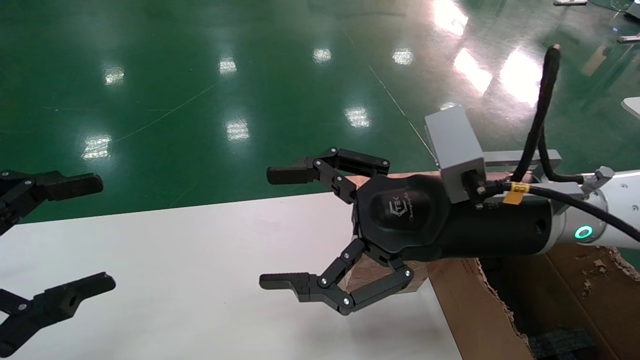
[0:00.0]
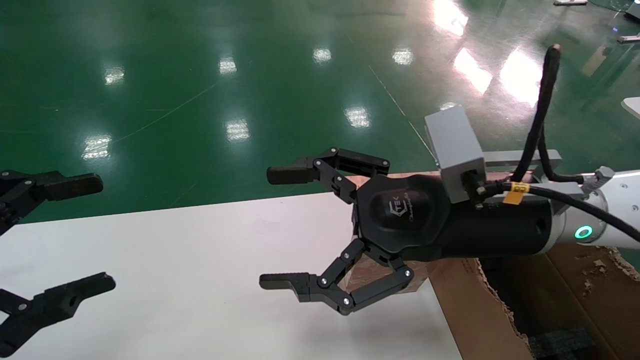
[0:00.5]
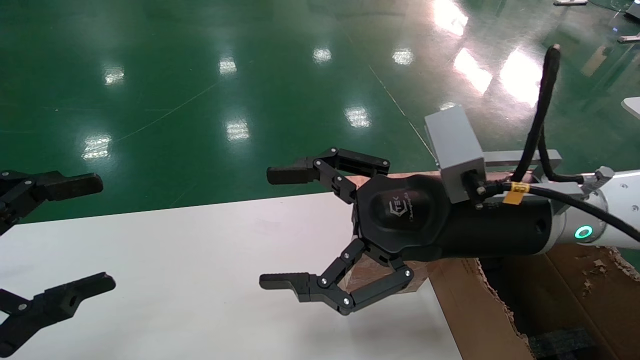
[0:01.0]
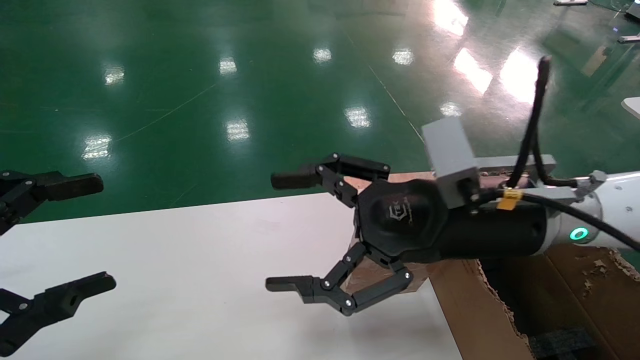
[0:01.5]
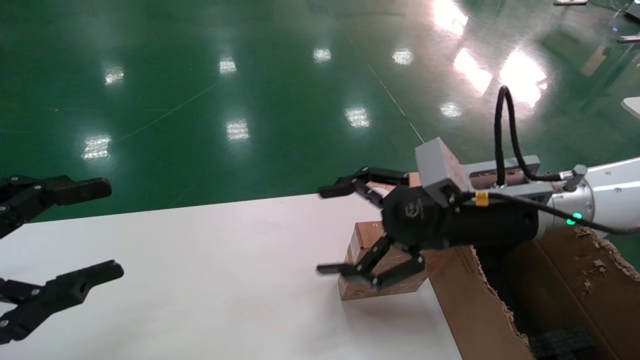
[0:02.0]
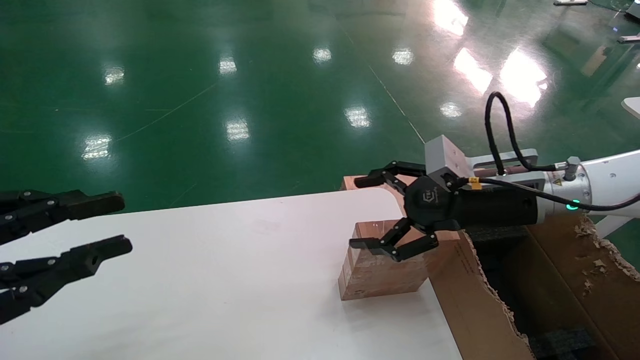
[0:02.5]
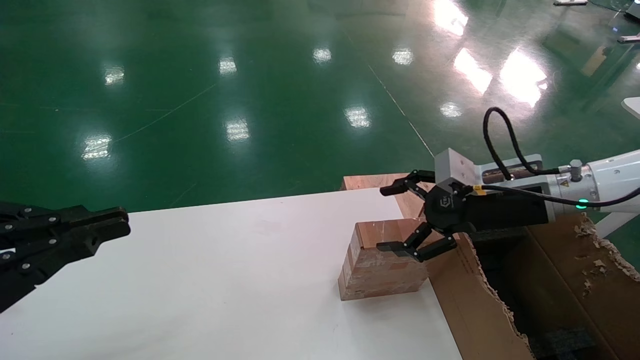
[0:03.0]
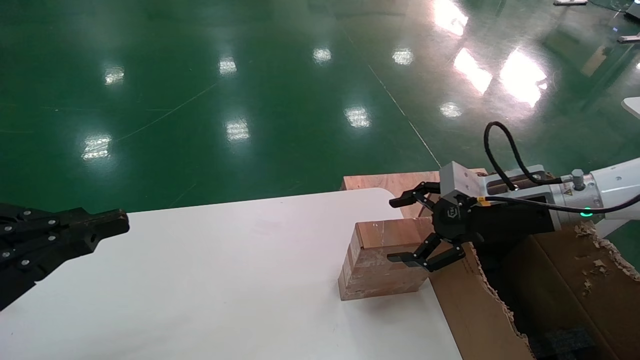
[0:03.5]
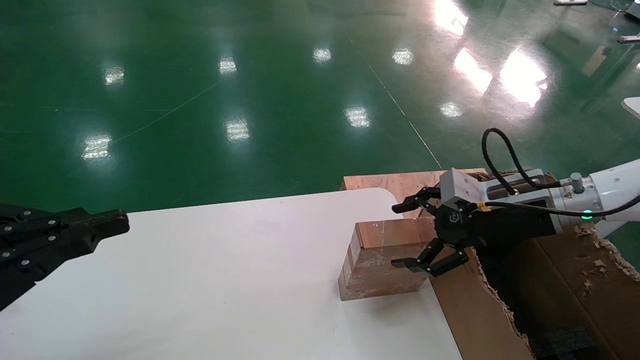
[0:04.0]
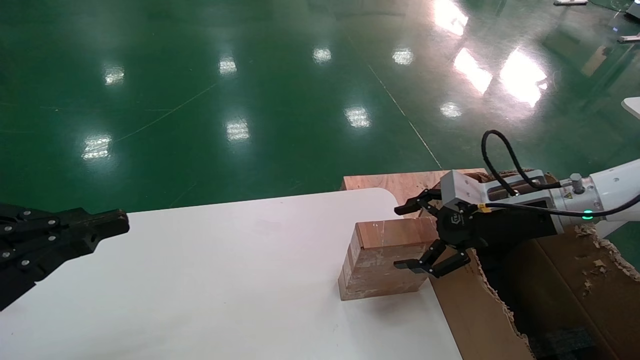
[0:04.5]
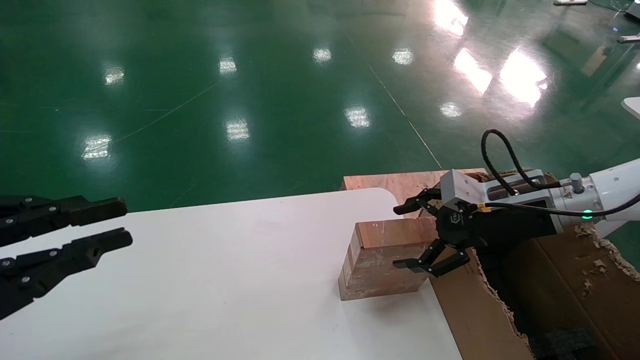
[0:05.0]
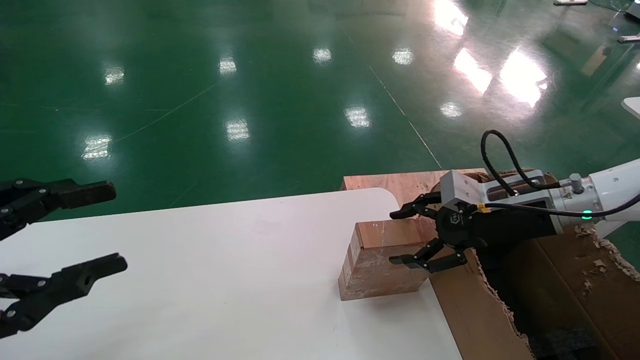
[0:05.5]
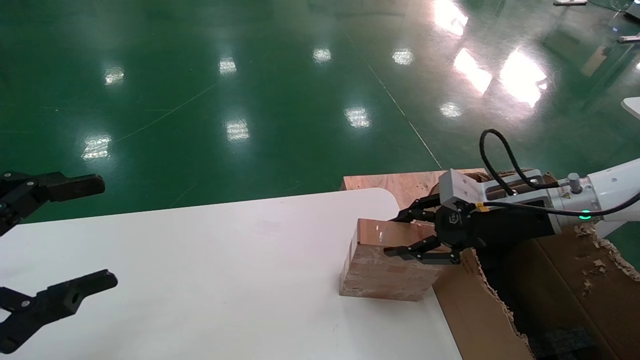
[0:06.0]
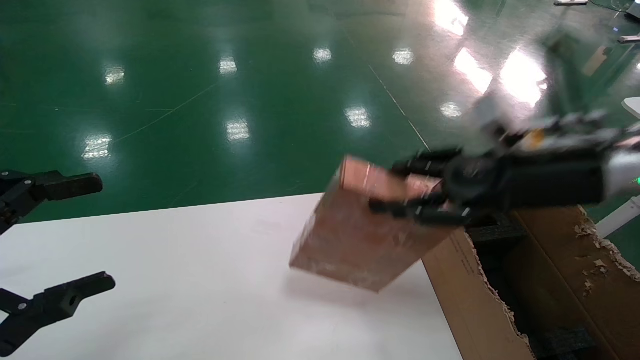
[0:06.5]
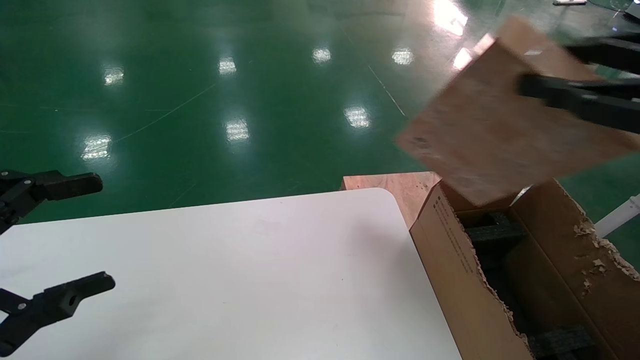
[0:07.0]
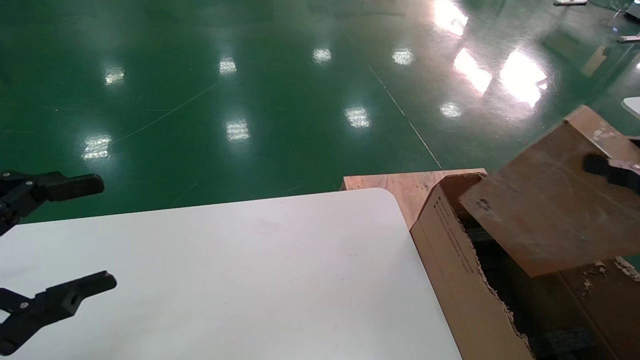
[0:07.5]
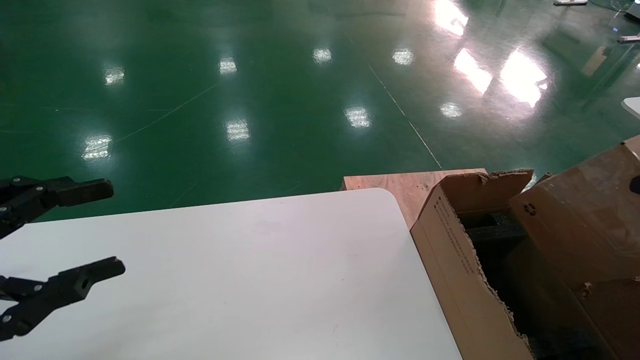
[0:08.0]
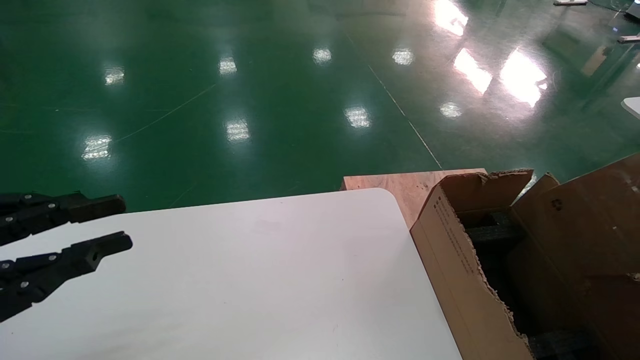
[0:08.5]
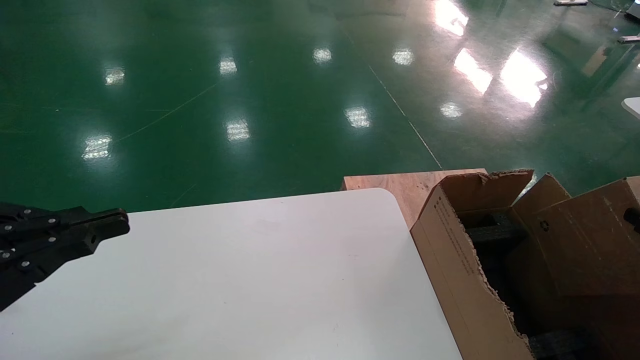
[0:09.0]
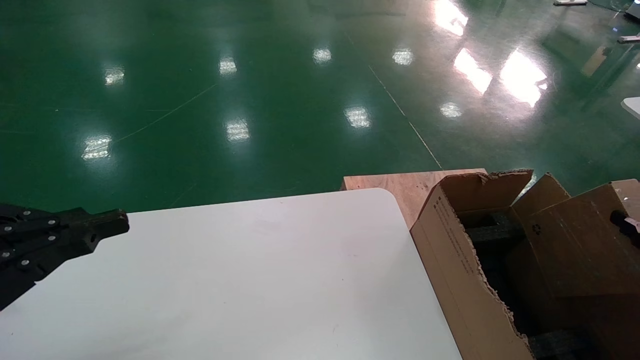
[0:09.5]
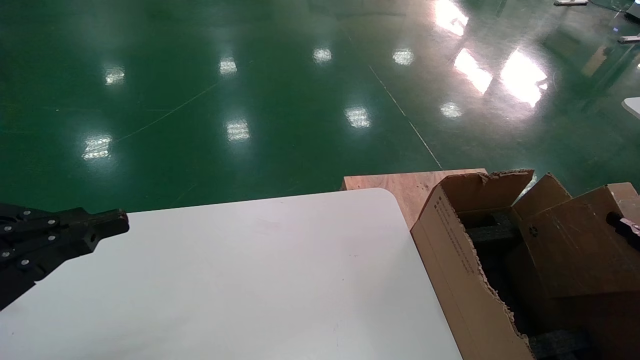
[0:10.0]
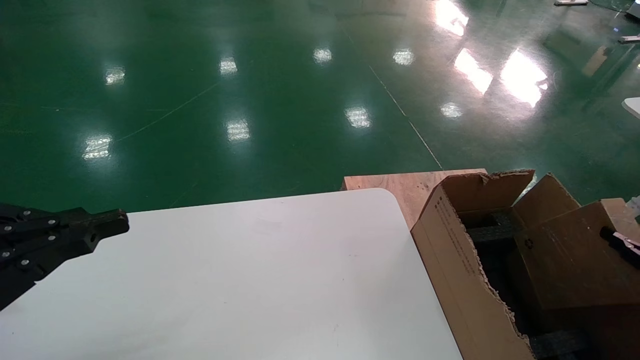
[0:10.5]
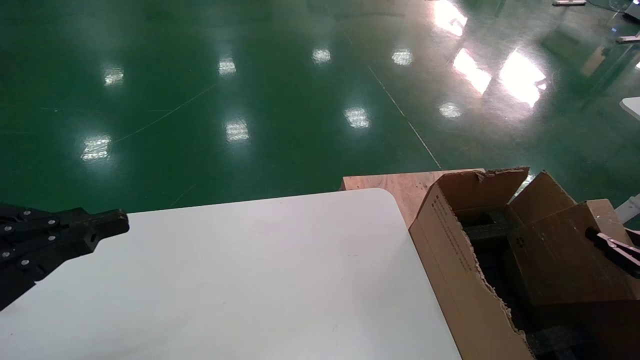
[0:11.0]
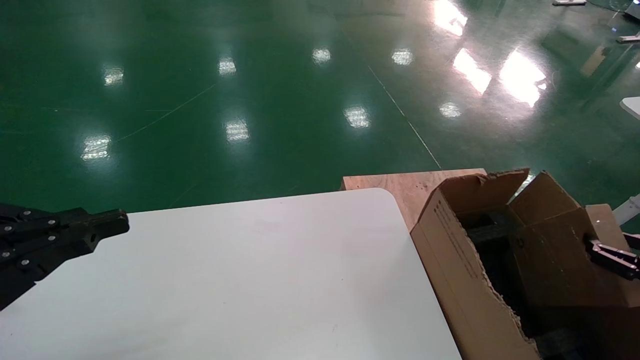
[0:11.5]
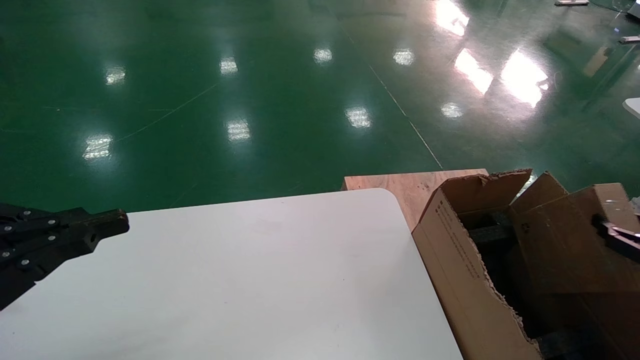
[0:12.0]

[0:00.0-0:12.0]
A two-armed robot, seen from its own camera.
Task of the whole recording: put the box on the table into the big box.
Step, 0:02.0 to 0:06.0: Pick up the mouse and the power cord paper box.
0:00.0 to 0:02.0: The right gripper travels to the right by about 5 cm.
0:02.0 to 0:04.0: The right gripper is displaced to the right by some 10 cm. The left gripper closes its fingers.
0:04.0 to 0:06.0: The left gripper opens; the right gripper closes.
0:06.0 to 0:08.0: The right gripper goes about 30 cm backward and to the right.
0:08.0 to 0:10.0: The right gripper travels downward, forward and to the right by roughly 15 cm. Meanwhile the left gripper closes its fingers.
0:10.0 to 0:12.0: The grippers move only a little.

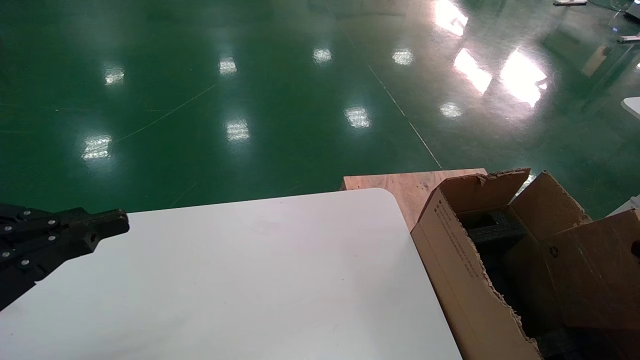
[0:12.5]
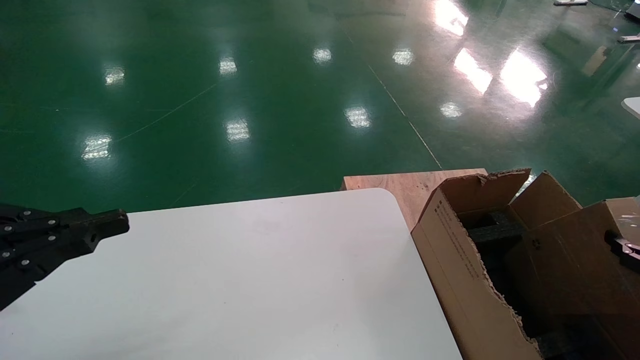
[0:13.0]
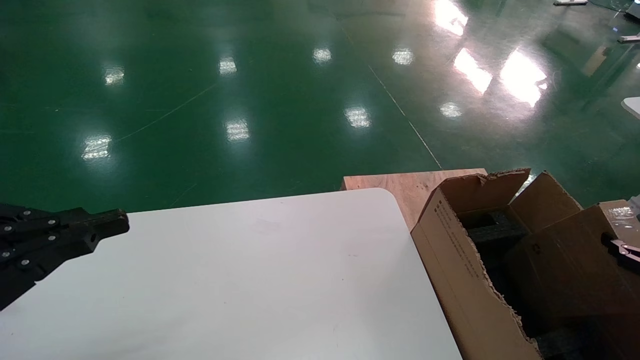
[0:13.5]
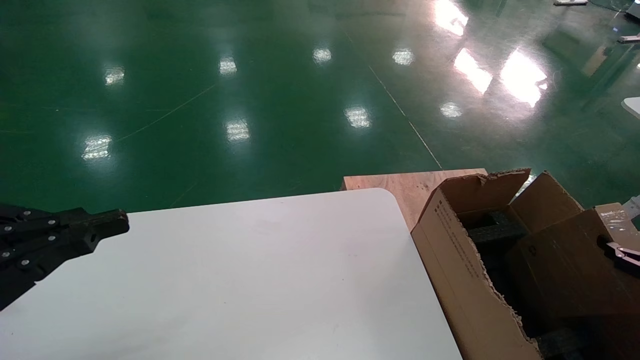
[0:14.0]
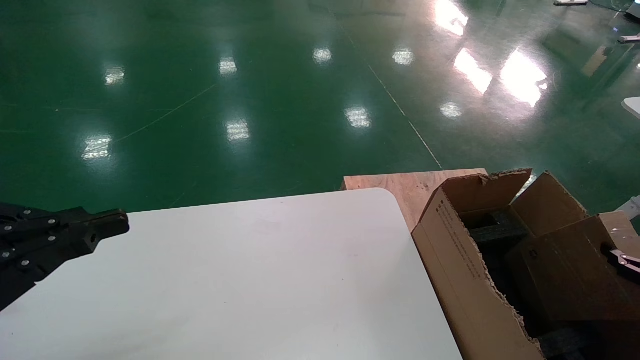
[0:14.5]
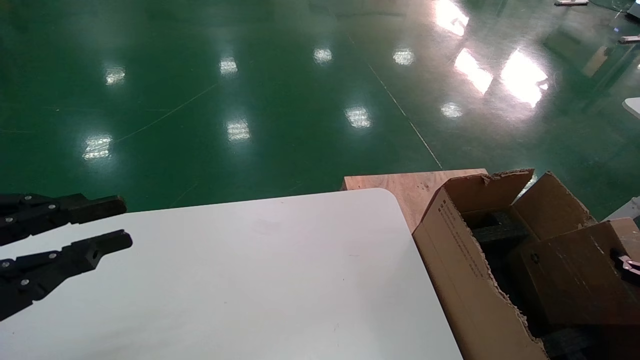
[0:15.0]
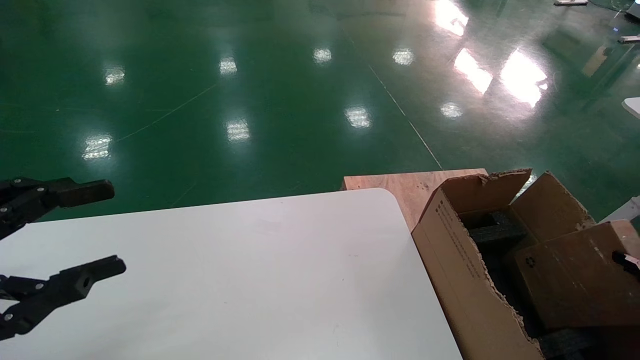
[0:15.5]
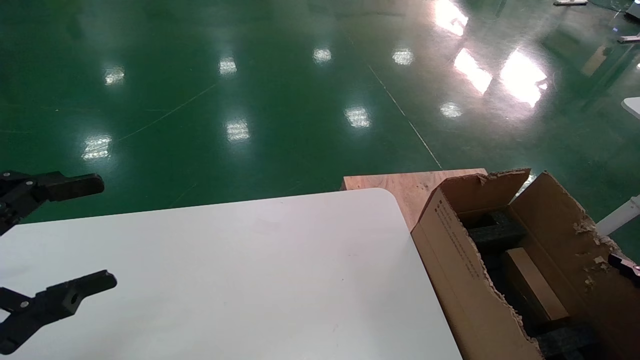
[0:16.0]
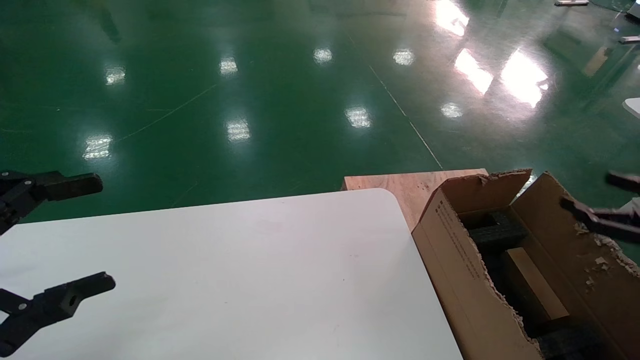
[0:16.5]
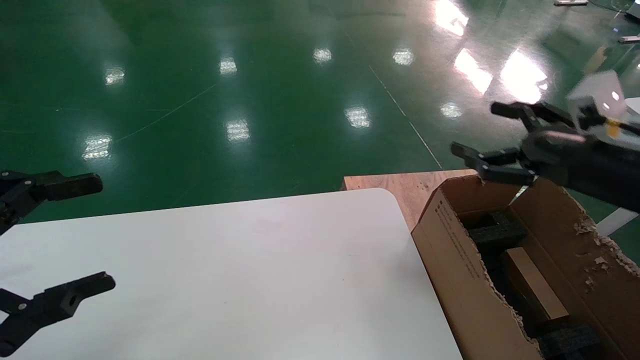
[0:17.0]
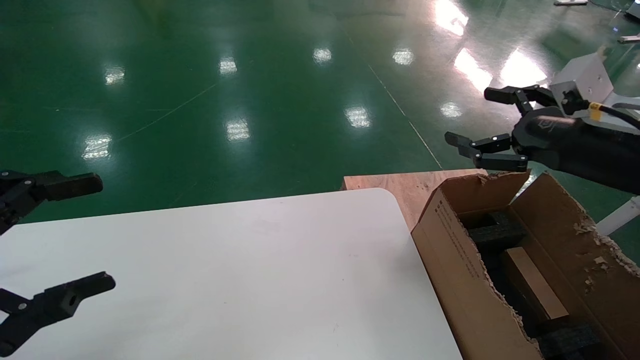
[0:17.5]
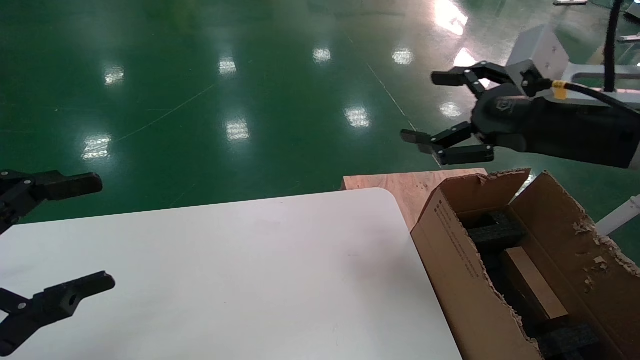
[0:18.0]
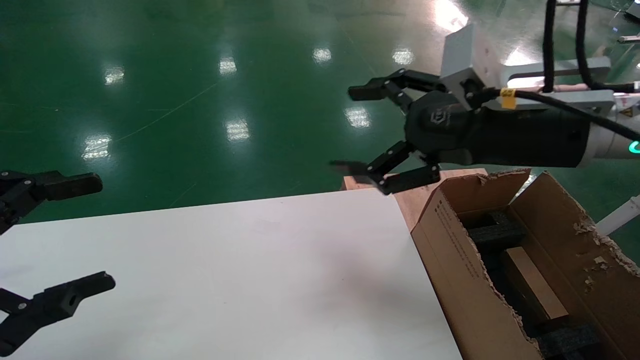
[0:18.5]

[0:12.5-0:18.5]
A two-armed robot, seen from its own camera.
Task of the whole recording: put the box on the table into the big box.
Step, 0:12.5 to 0:16.0: Place the mouse and the power cord paper box into the container.
0:12.5 to 0:14.5: The right gripper ends up approximately 10 cm from where it was.
0:14.5 to 0:16.5: The left gripper opens its fingers; the right gripper heads upward, covering some 10 cm, and opens.
0:16.5 to 0:18.5: The right gripper is displaced to the left and upward by roughly 30 cm.
